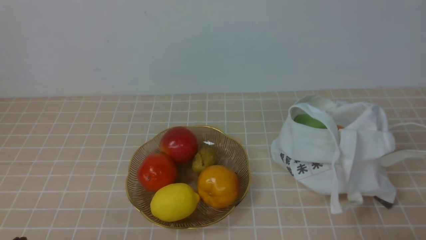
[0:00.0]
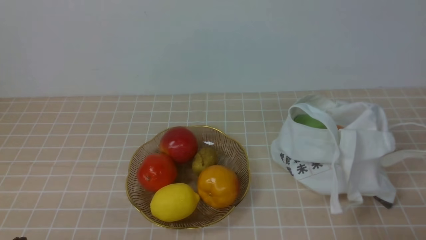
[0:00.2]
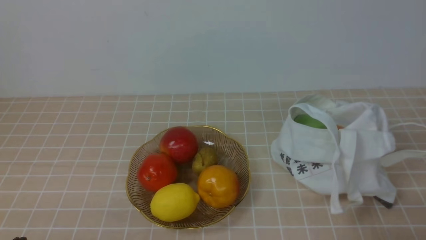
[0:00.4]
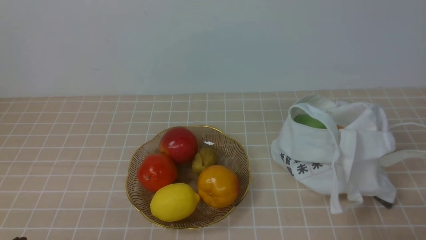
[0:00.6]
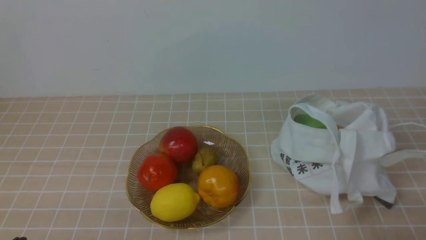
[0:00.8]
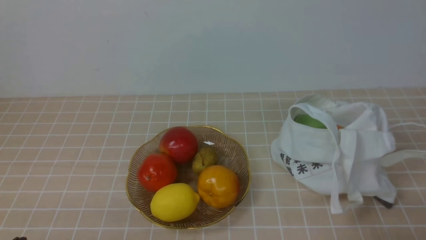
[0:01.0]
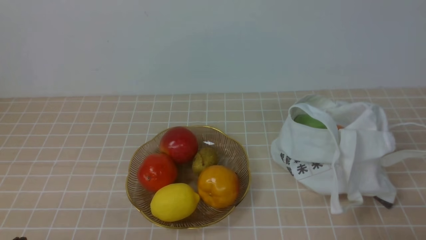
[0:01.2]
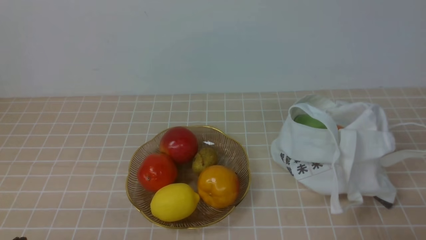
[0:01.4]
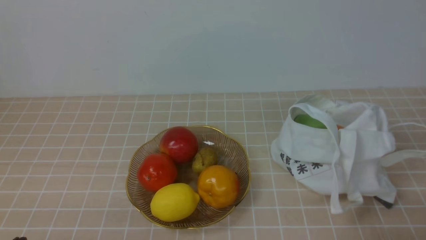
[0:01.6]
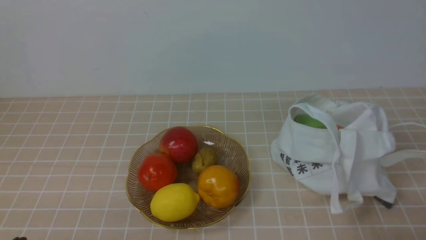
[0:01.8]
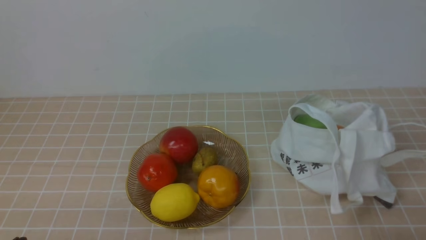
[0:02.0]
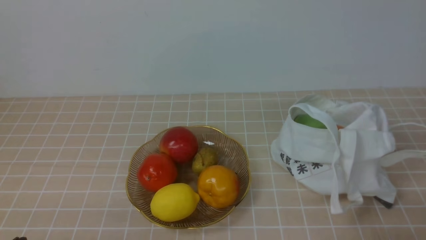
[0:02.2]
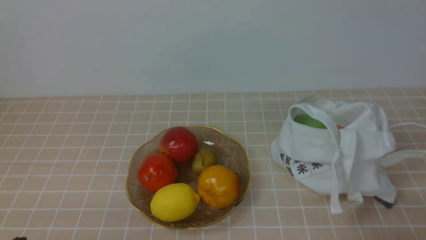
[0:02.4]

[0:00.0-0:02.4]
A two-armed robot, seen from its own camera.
0:00.0 to 0:02.4: Both grippers stay put.
